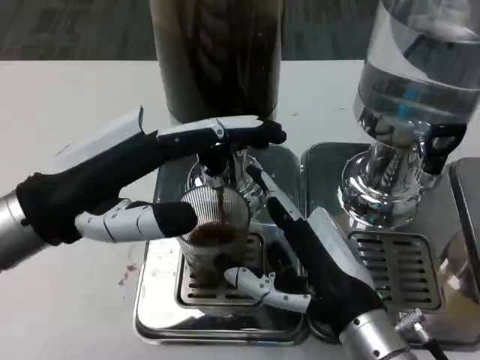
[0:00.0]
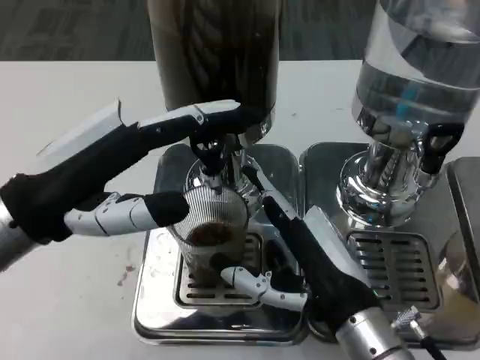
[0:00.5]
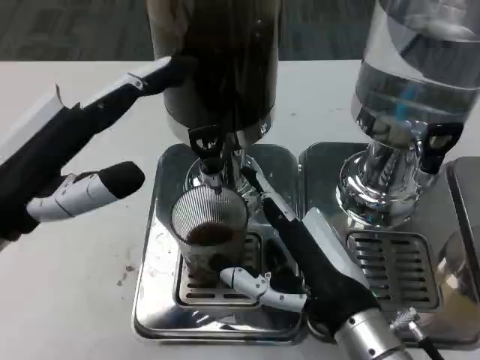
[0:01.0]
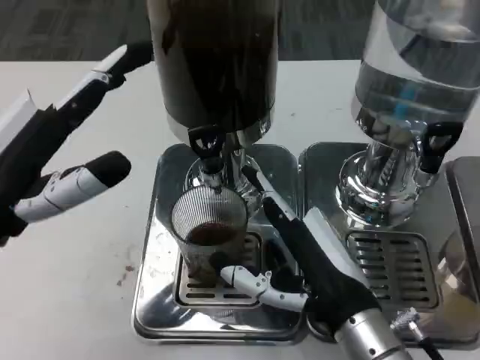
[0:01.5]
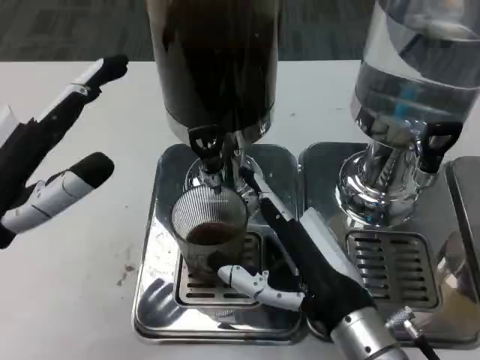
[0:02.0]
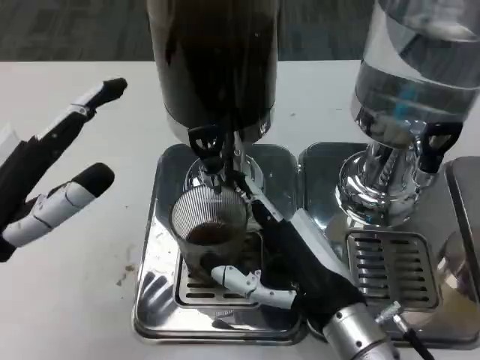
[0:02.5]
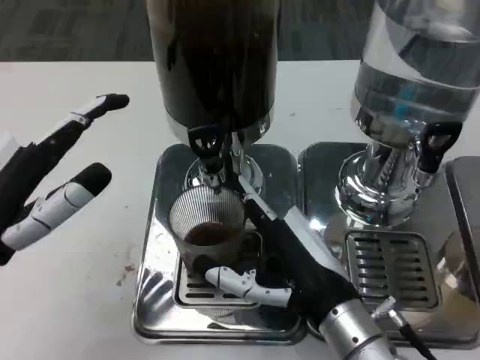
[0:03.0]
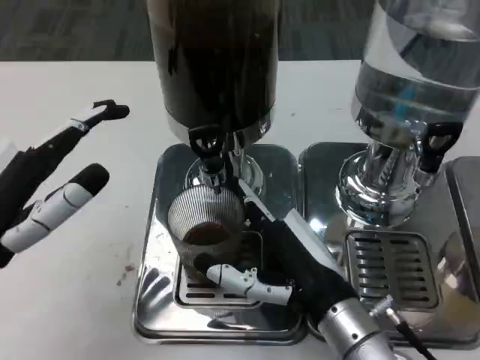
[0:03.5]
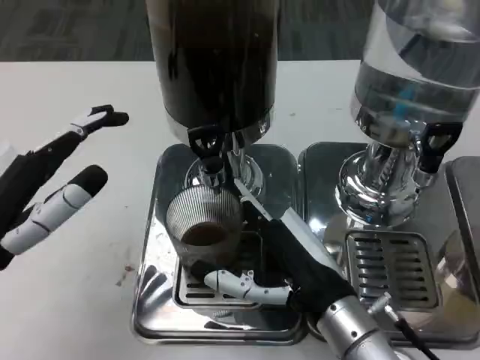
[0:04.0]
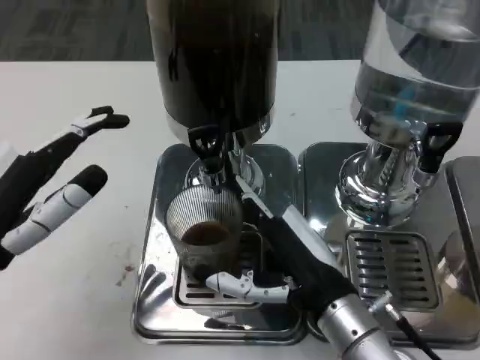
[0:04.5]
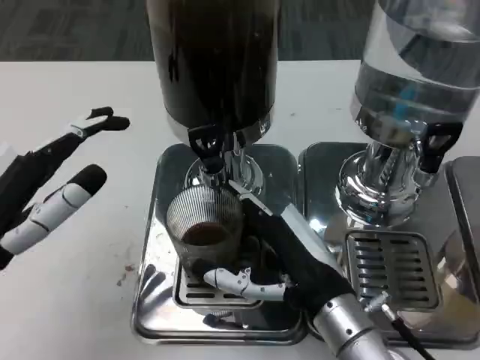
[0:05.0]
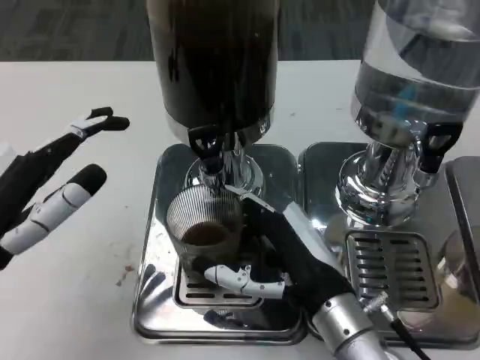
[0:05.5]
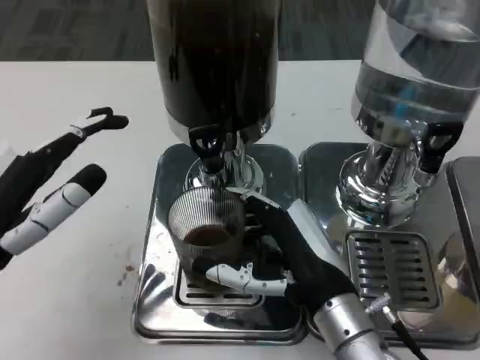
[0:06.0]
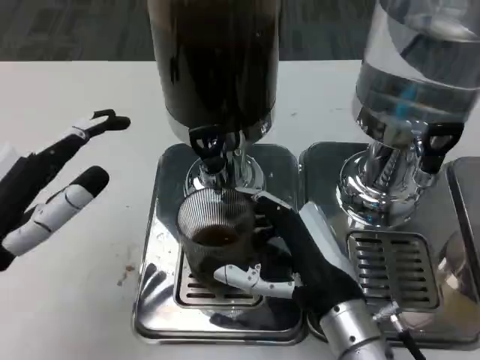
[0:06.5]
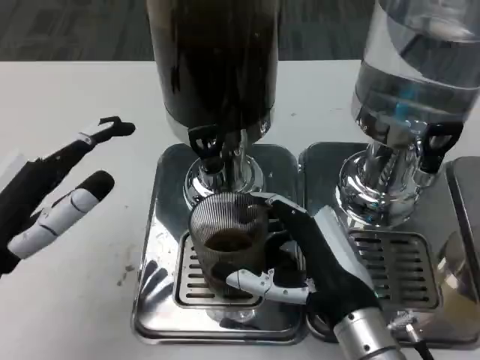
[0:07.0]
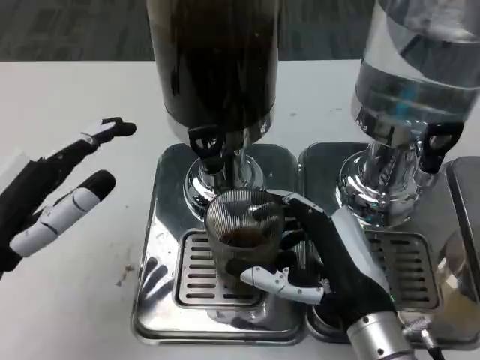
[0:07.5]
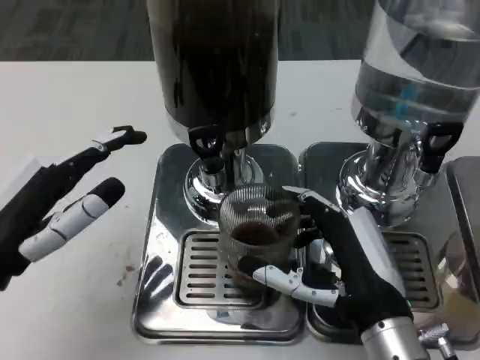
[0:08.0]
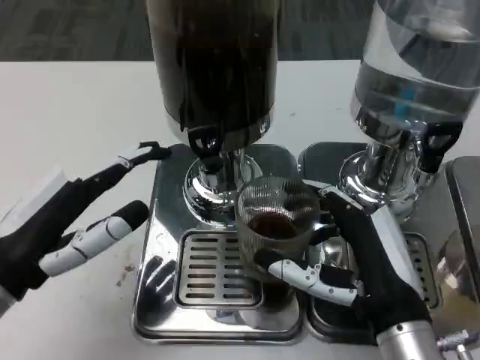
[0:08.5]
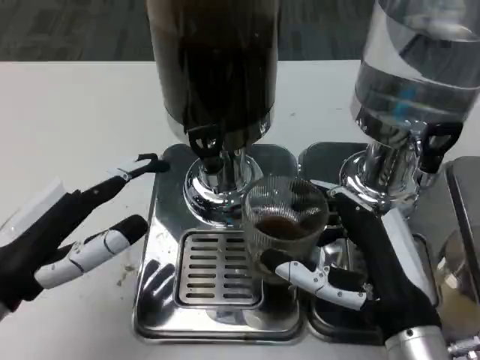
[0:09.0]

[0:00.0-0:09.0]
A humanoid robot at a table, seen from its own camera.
Task of the whole recording: Grasp the cup under the faucet to collect the drink, then remove the cup.
0:00.0 to 0:02.0: The left hand ends up approximately 5 cm from where it was.
0:02.0 to 0:07.0: There are only small adjustments of the hands.

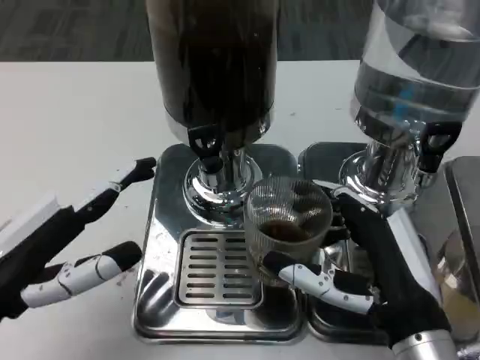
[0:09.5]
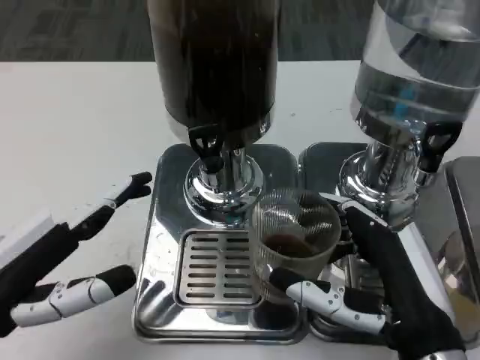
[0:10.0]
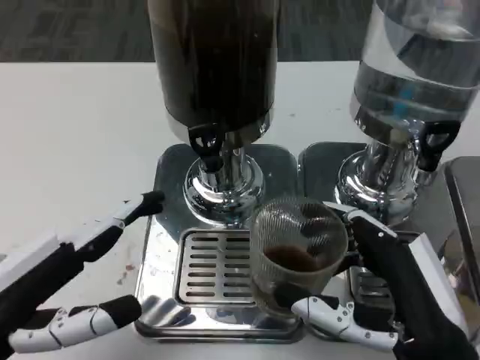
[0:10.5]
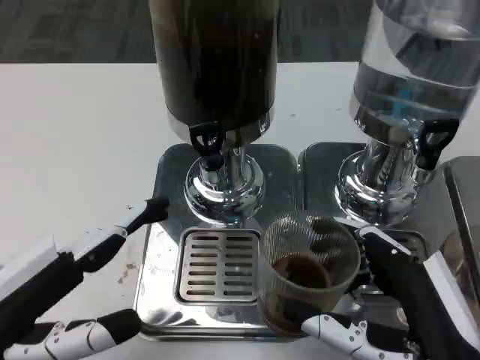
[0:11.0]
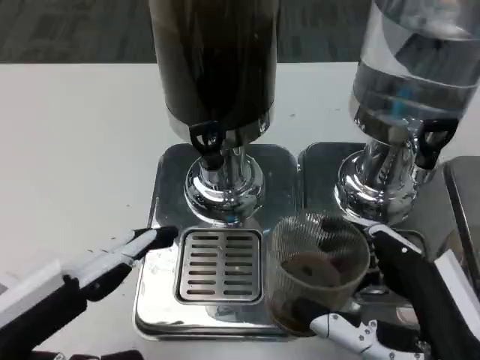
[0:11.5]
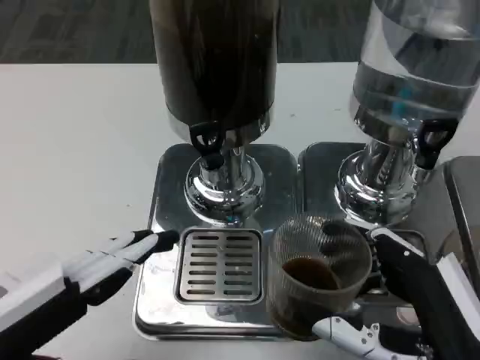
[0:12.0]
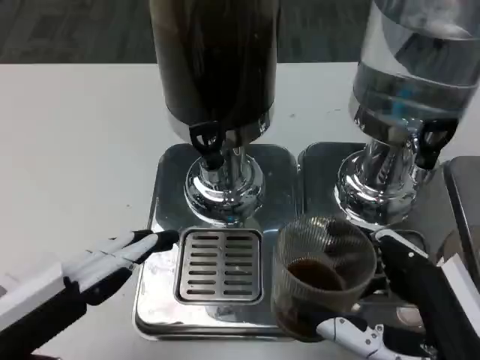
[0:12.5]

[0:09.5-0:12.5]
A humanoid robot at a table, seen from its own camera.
Task of the whole recording: Grasp the cup under the faucet to collect the drink, then remove the cup.
0:09.5 to 0:11.0: The right hand is displaced backward by about 5 cm.
0:11.0 to 0:12.5: The hands make only small movements.
